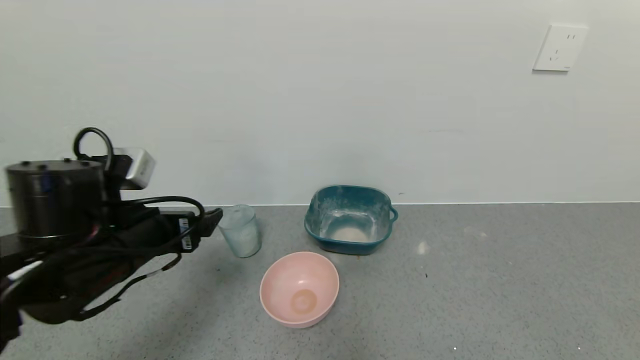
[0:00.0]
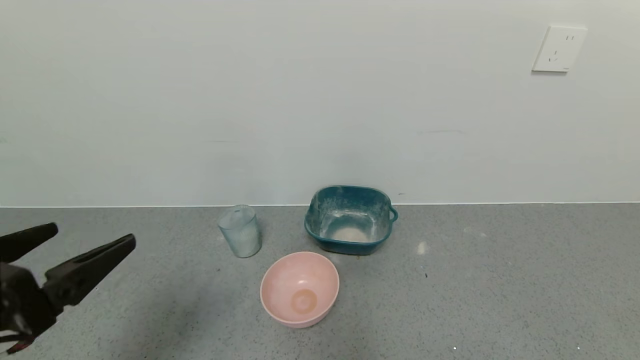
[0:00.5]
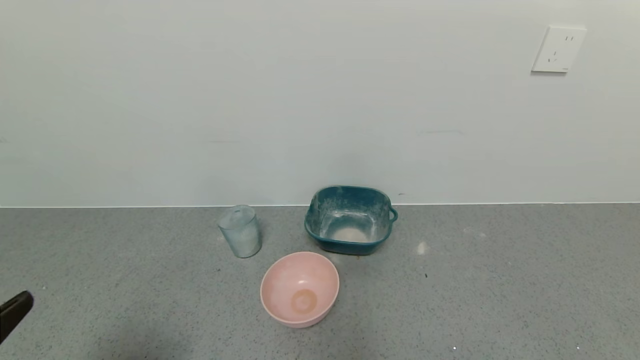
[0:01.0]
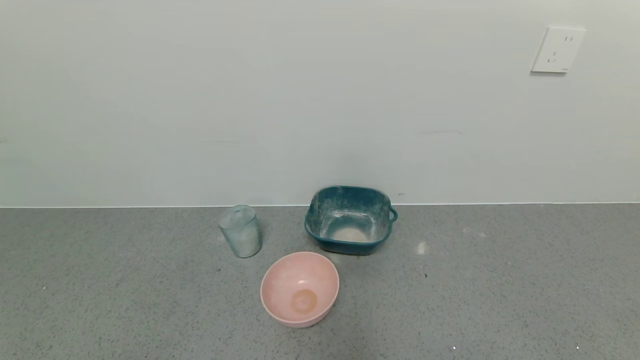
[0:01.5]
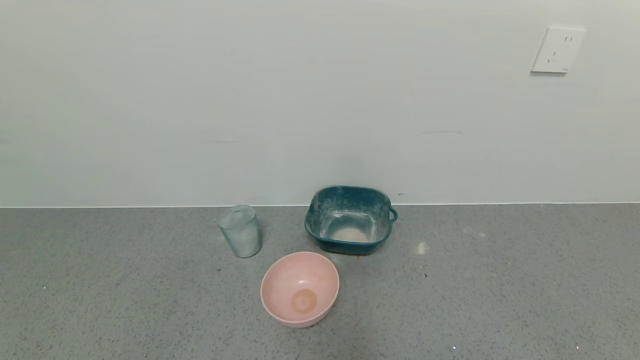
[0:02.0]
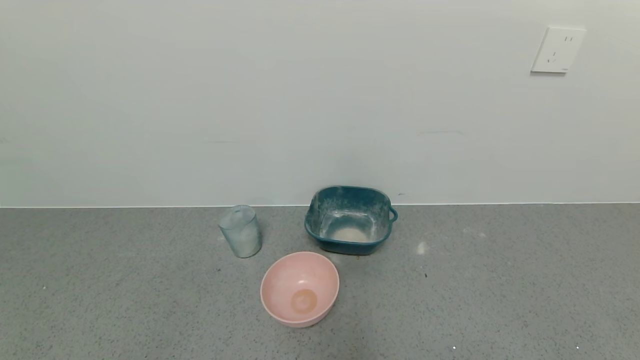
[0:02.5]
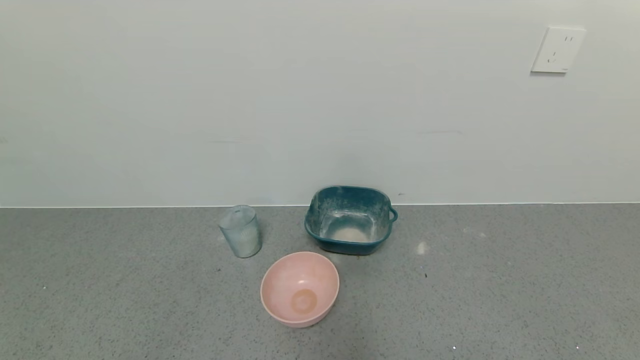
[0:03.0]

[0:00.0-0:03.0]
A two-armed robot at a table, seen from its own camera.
Task of the whole recording: use a gripper to pick up the cup and pour the powder into a bowl or tray.
0:00.0 to 0:01.5: The left gripper heads backward, covering about 25 cm.

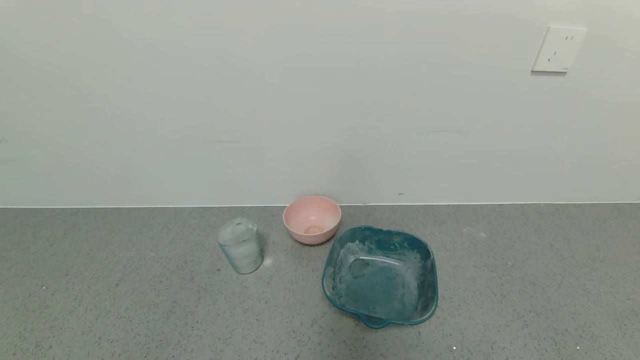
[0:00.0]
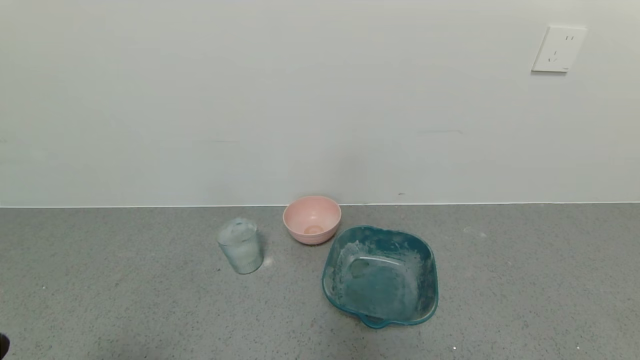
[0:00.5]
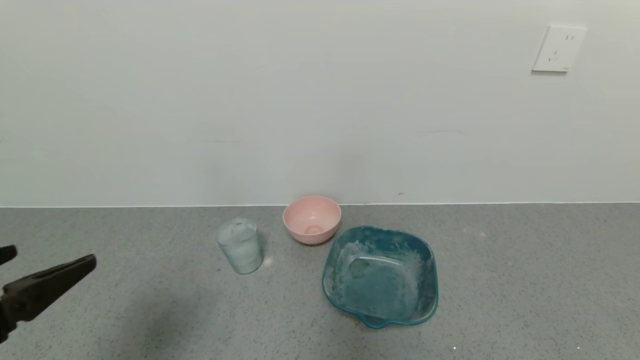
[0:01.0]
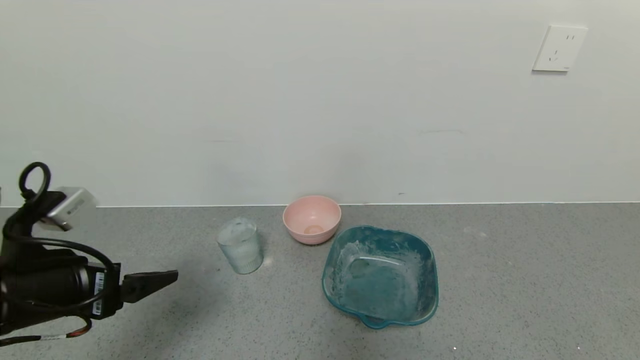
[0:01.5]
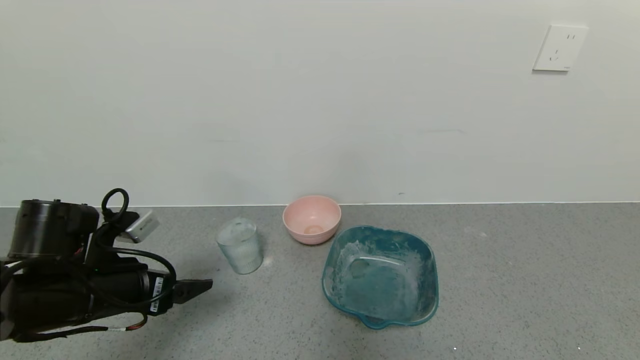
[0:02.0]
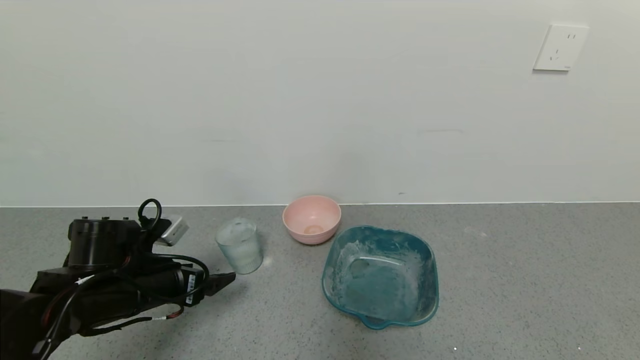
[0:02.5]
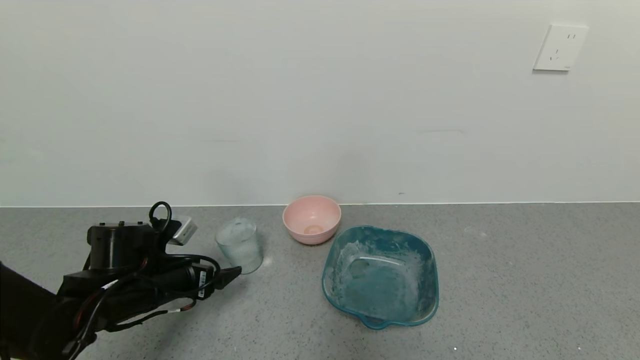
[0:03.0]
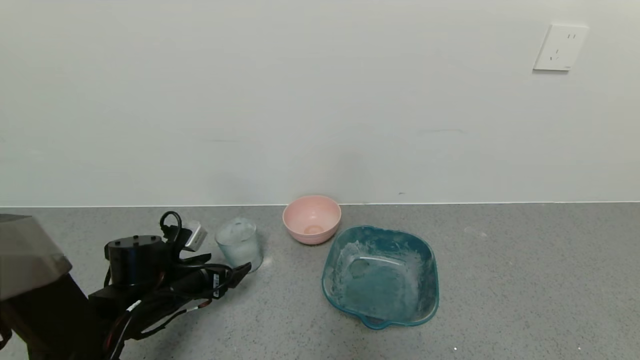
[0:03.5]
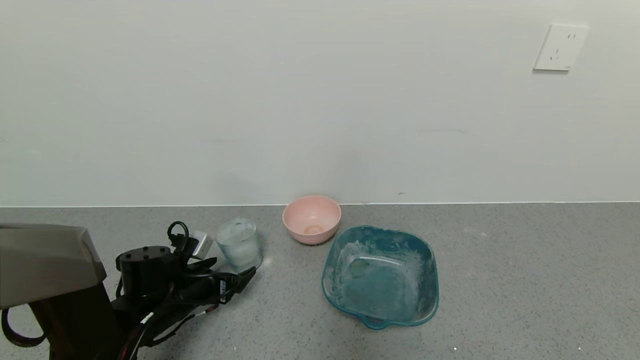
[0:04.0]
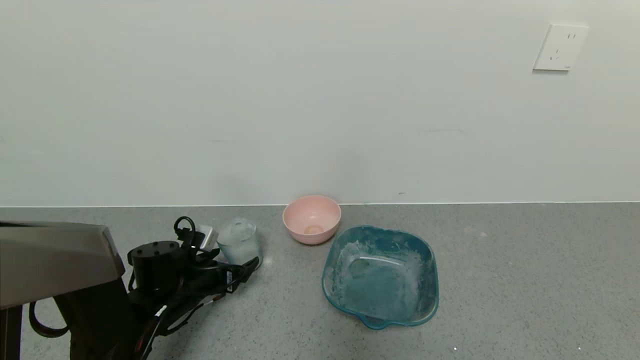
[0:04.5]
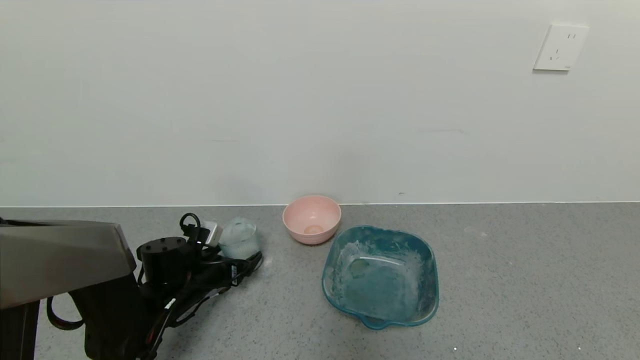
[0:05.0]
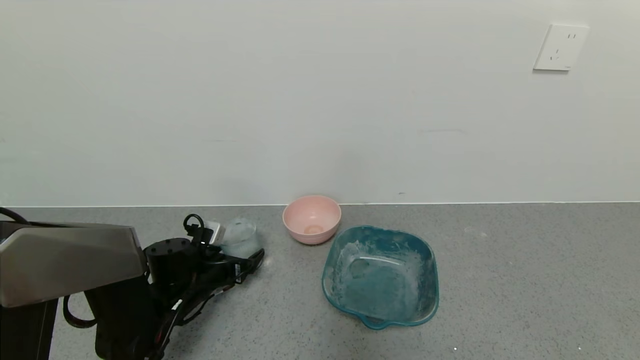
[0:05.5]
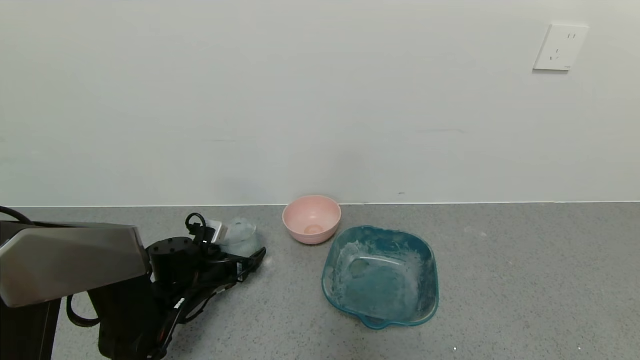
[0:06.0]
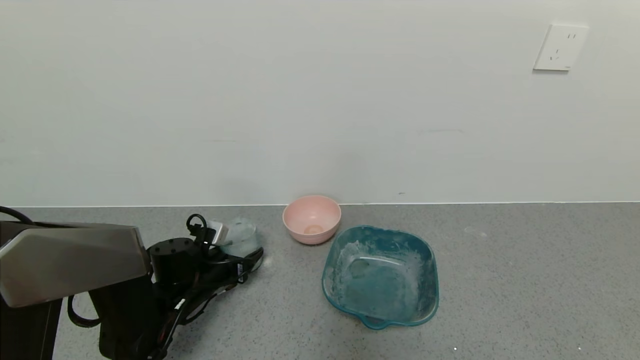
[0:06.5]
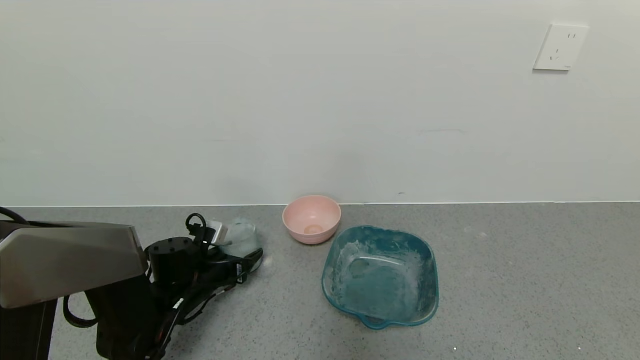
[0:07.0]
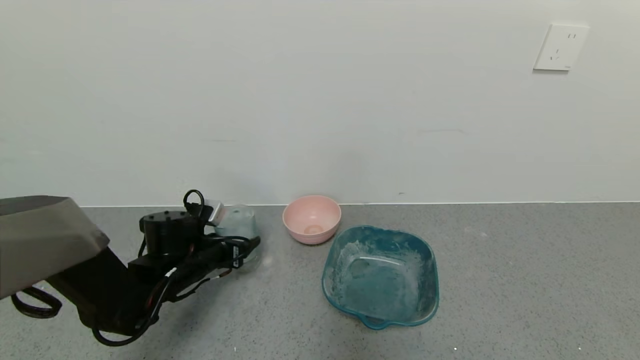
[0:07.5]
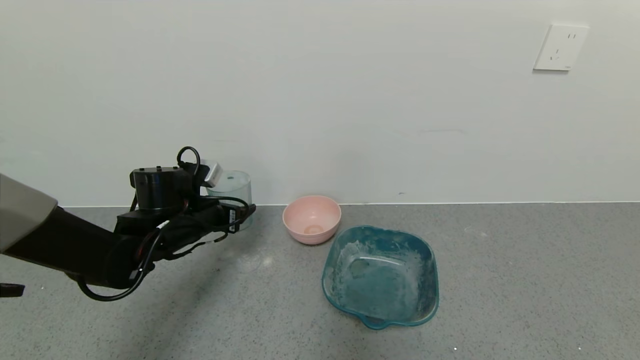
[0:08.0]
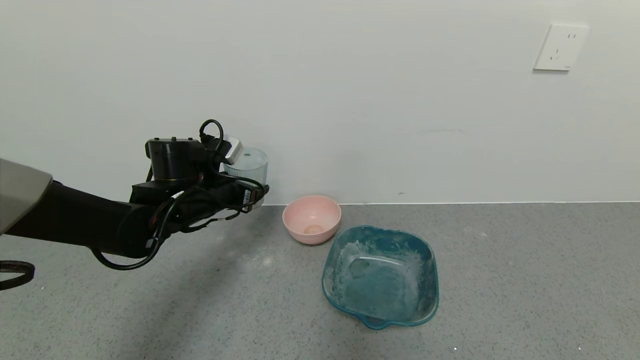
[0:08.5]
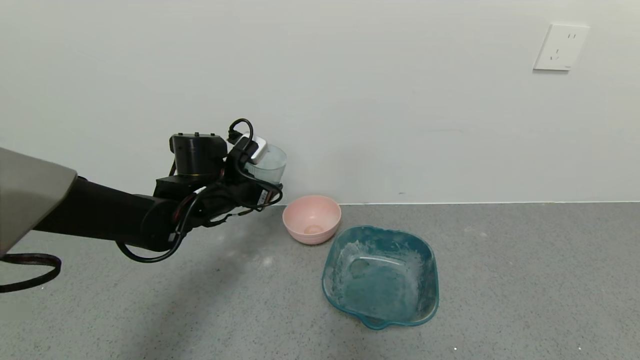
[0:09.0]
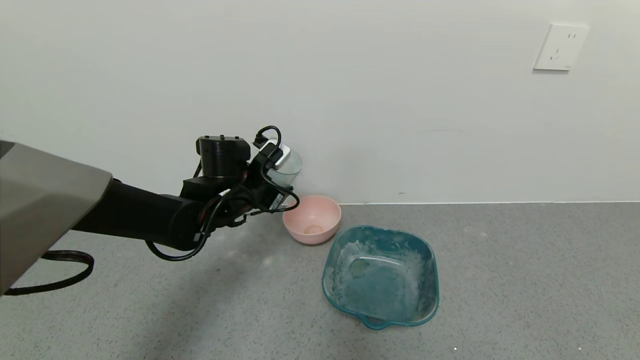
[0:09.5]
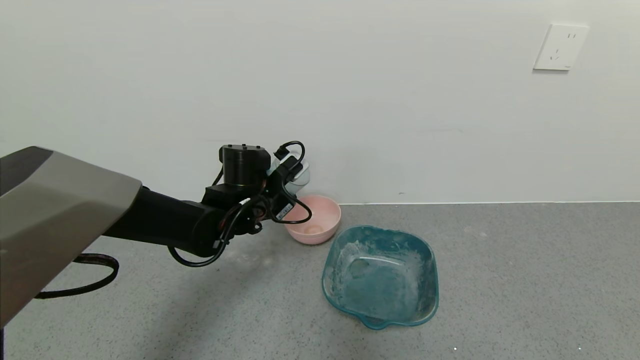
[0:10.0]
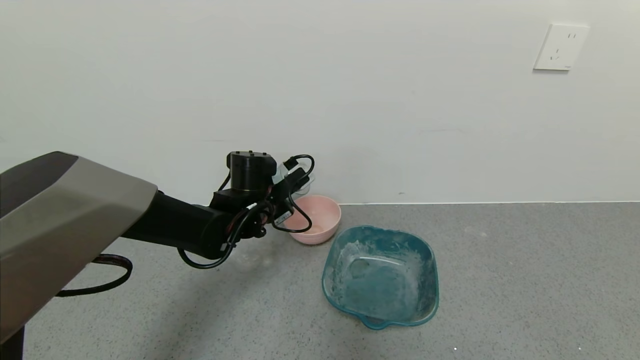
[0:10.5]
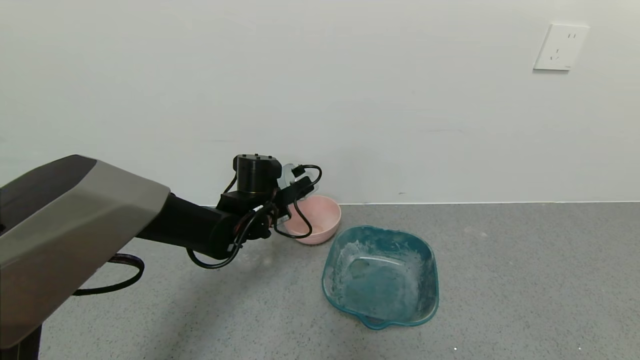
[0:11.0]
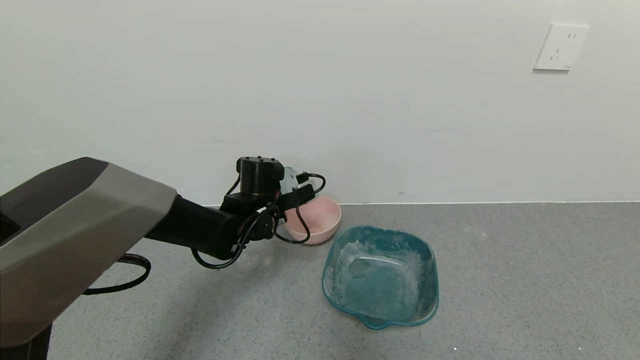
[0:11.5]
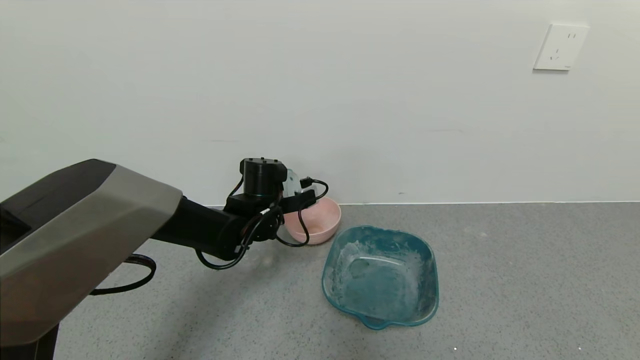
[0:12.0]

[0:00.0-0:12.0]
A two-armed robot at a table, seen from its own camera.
Task of the whole recording: use a gripper to pick up the cup and pour the powder into a bowl or tray.
Step, 0:00.0 to 0:06.5: Grasp the glass of powder with the left gripper.
0:00.0 to 0:02.0: The left gripper goes roughly 25 cm forward.
0:02.0 to 0:04.0: The left gripper heads downward and forward, covering some 15 cm.
0:04.0 to 0:06.0: The grippers move only a little.
0:06.0 to 0:08.0: The left gripper goes approximately 10 cm upward, and closes up.
0:08.0 to 0:10.0: The left gripper travels to the right by roughly 10 cm.

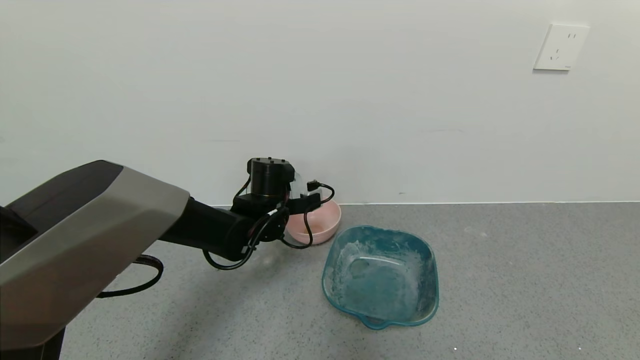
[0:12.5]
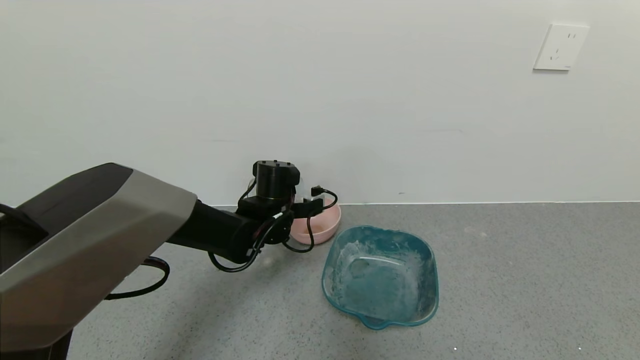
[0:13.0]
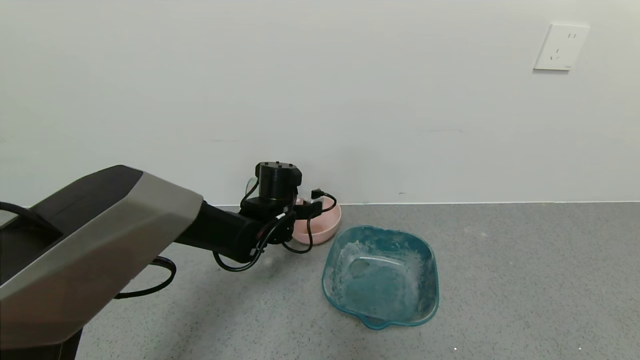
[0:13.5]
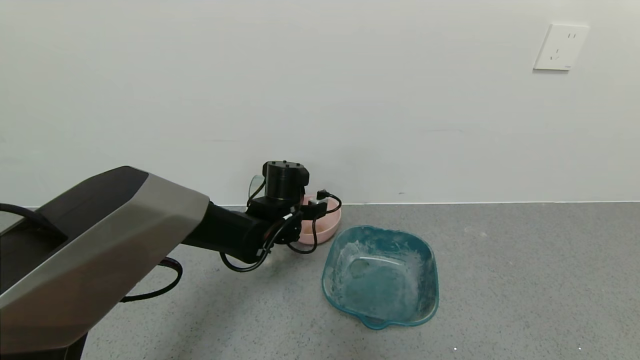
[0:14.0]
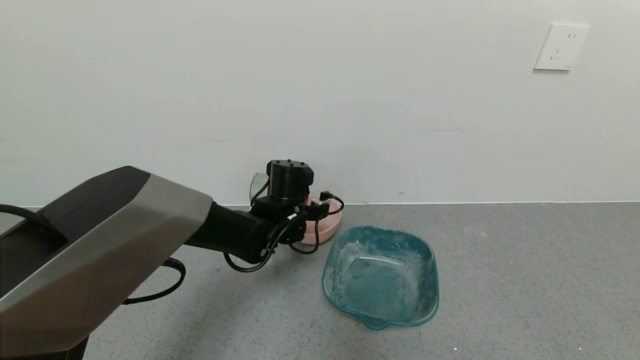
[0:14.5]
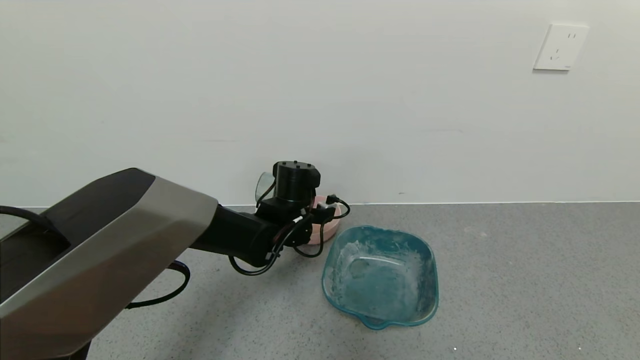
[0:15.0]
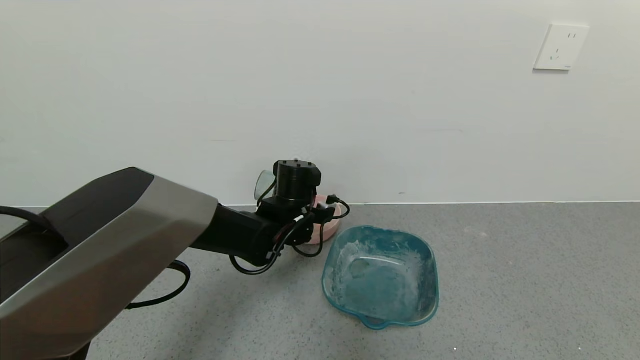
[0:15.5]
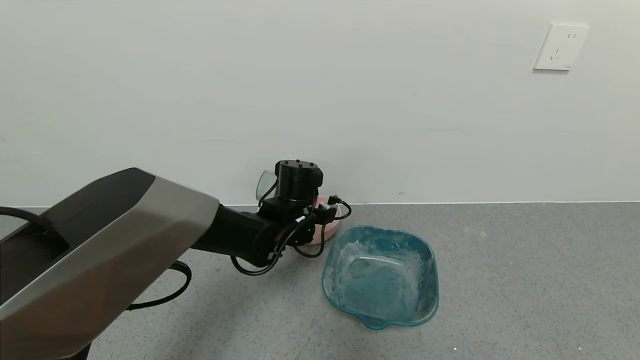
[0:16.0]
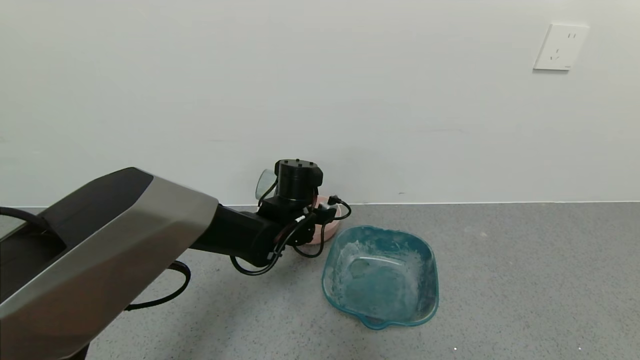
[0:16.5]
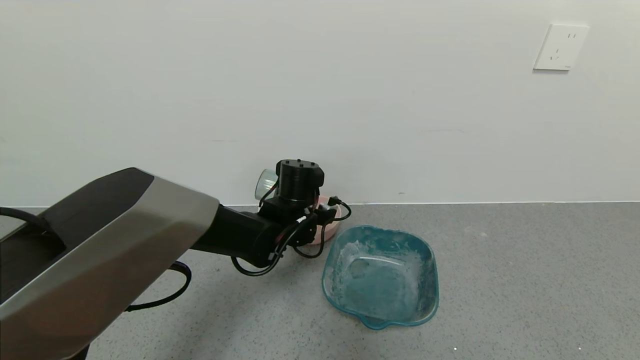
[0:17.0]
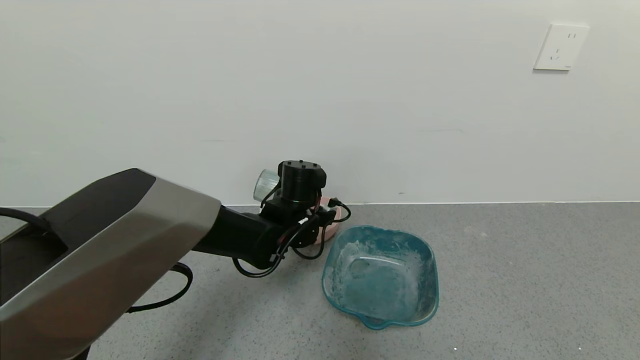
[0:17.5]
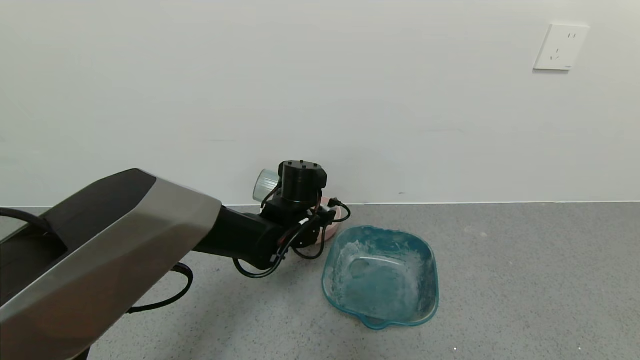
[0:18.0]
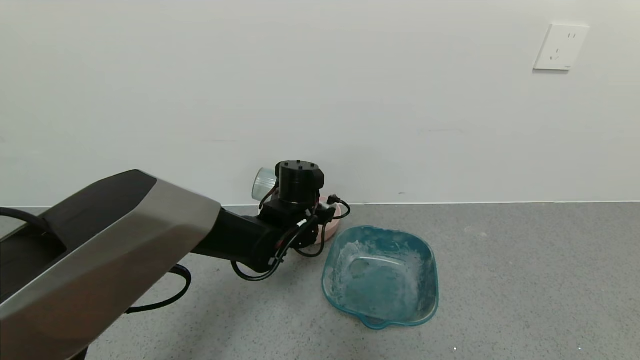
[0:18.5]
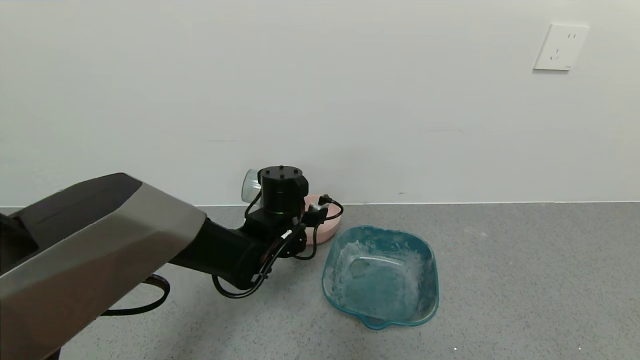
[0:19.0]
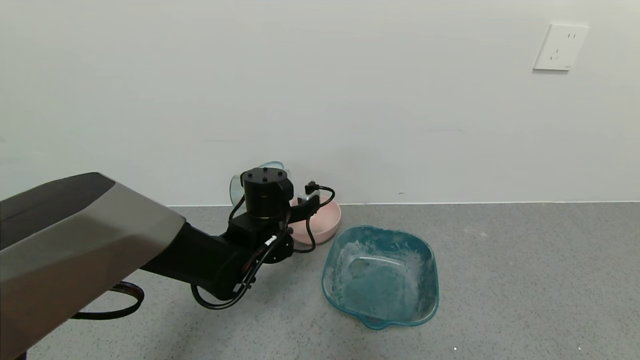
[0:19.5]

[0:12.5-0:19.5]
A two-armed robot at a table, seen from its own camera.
Task of the whole recording: use a gripper to pick up the cup and pour the powder into a bowl or tray.
0:12.5 to 0:14.5: The grippers stay close to where they were, moving slightly.
0:14.5 to 0:16.0: The grippers stay close to where they were, moving slightly.
0:16.0 to 0:17.5: Neither gripper changes place.
